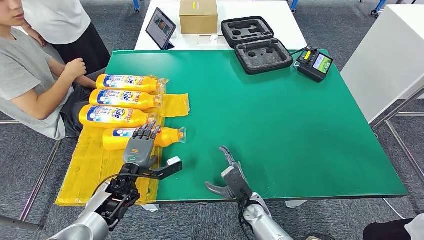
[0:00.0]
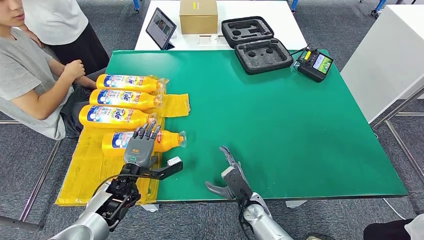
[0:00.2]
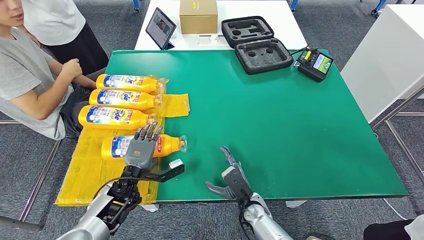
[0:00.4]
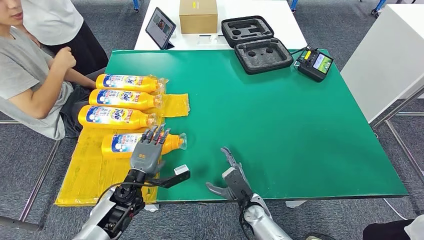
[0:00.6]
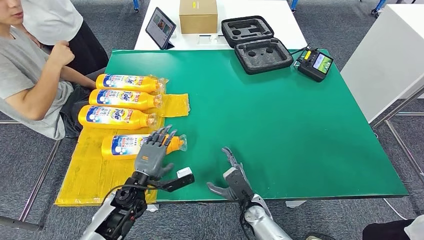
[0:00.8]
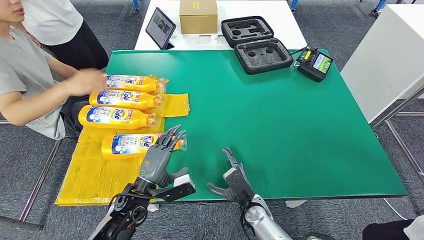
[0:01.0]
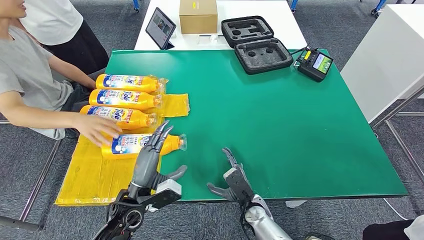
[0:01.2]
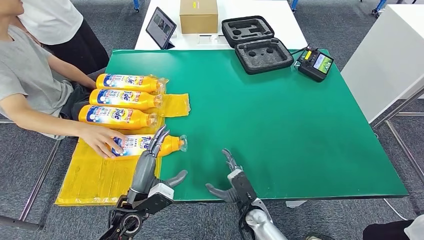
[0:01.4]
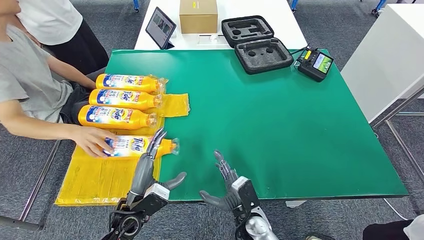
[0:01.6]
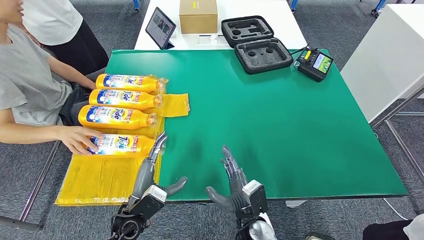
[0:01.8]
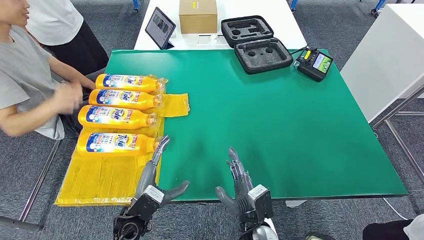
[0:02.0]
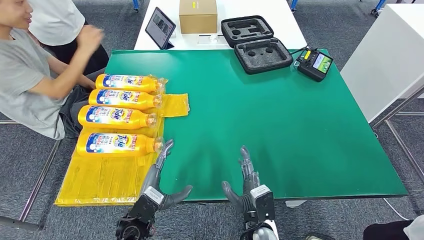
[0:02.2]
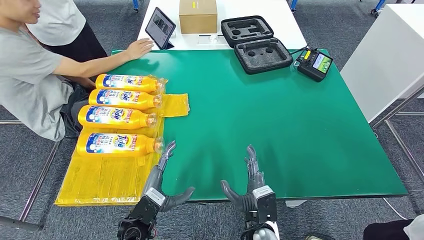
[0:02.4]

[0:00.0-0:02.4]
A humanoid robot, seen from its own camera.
Step, 0:00.0 to 0:02.4: Flip the bottle to face forward.
0:00.0 to 0:01.2: The left hand heads backward, covering approximately 5 cm.
0:01.2 to 0:02.4: The left hand ends up approximately 5 cm from where it was. The right hand travels backward by some 5 cm.
